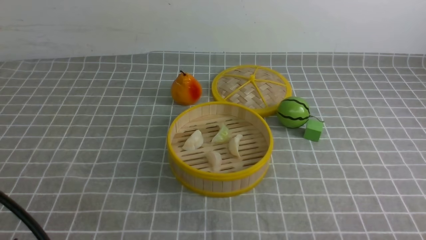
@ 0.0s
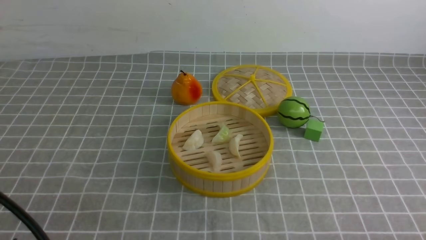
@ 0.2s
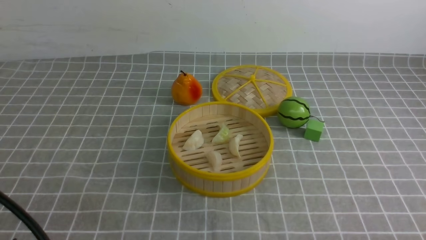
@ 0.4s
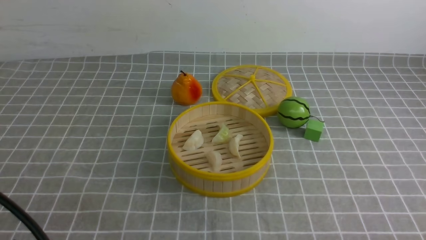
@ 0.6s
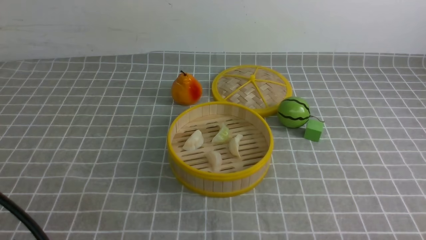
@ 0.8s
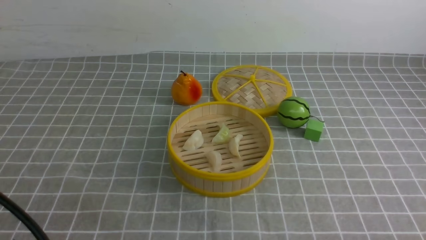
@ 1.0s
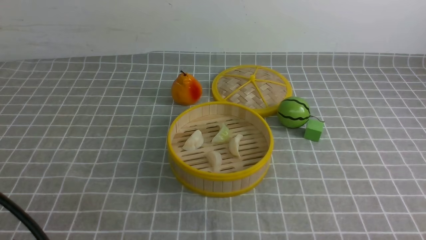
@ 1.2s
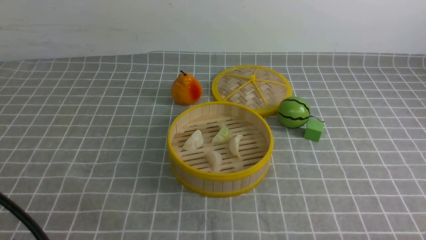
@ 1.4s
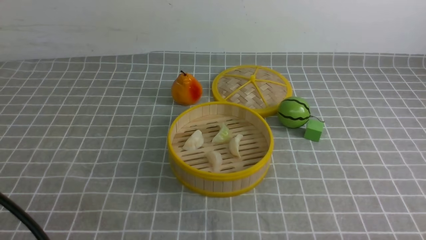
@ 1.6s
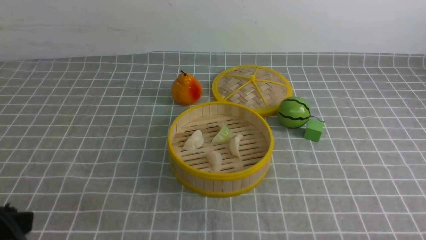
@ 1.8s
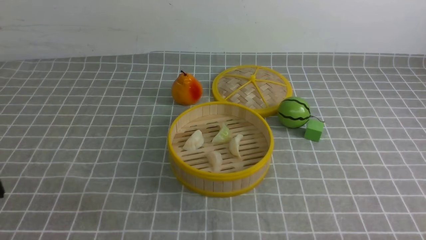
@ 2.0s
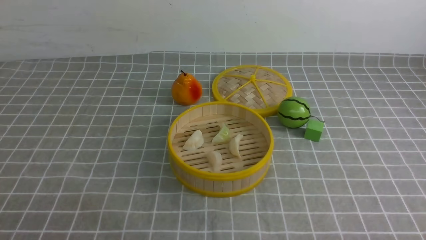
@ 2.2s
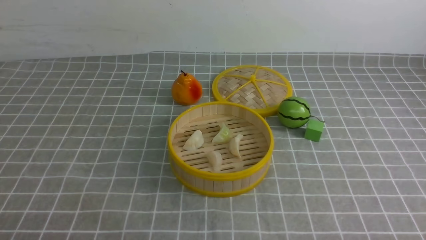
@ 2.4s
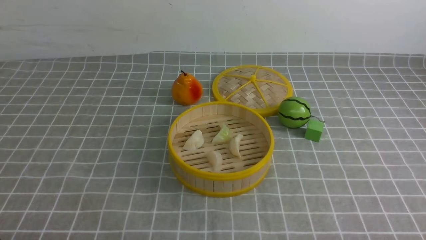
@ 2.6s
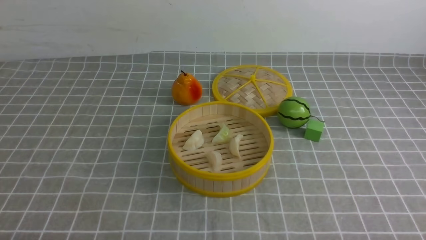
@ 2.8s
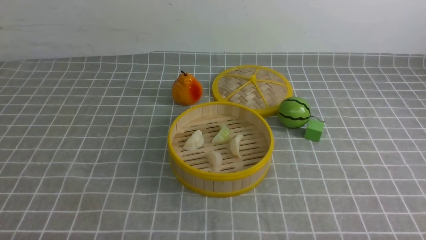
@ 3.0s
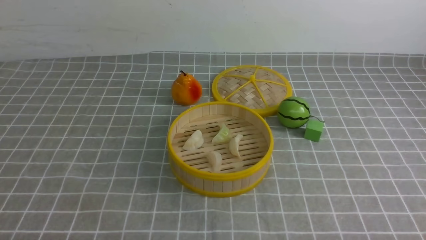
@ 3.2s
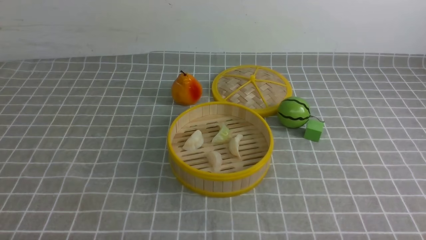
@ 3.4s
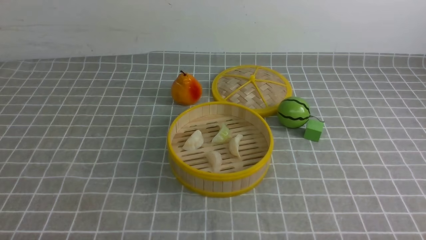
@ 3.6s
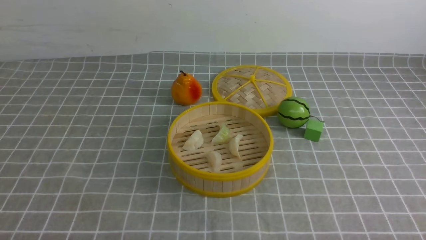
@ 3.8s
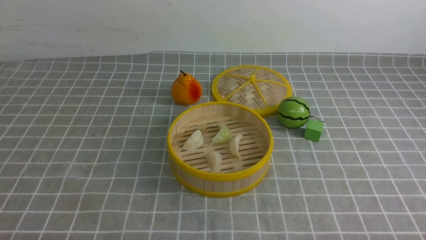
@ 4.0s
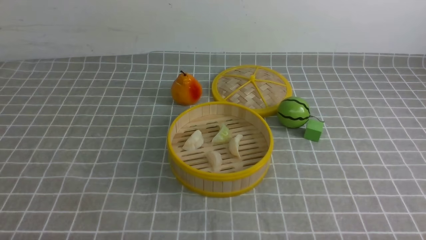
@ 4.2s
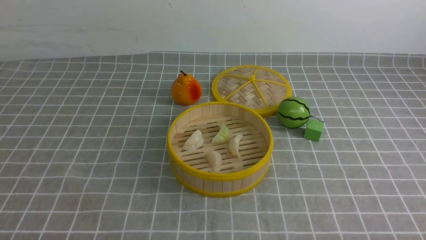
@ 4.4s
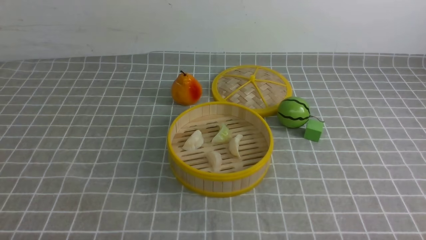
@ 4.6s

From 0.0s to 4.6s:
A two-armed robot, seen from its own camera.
Task of the whole recording: put the dumplings into the steamer on the table with the grey tablecloth.
From 1.6s to 3.0s: The left gripper shifts about 15 cm downward, and closes up.
From 3.0s to 4.6s: The two grippers keep their place.
